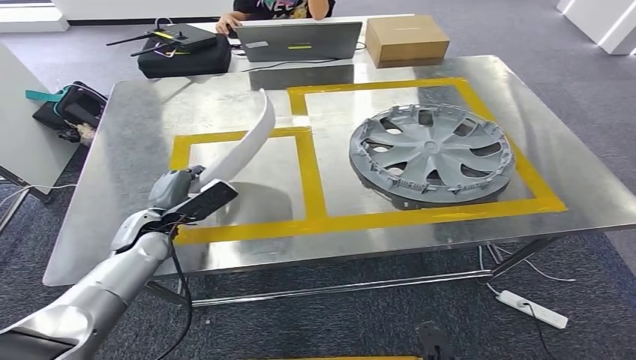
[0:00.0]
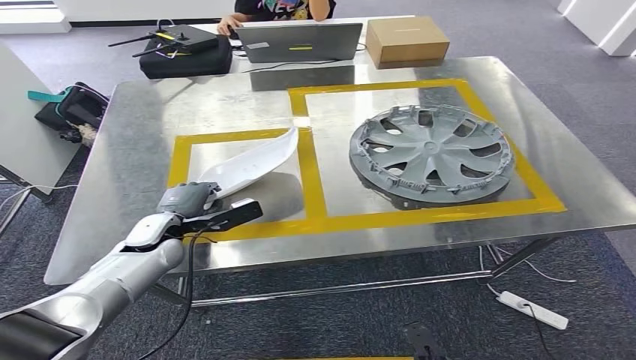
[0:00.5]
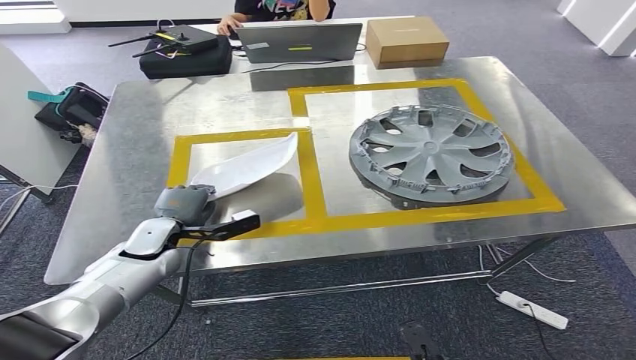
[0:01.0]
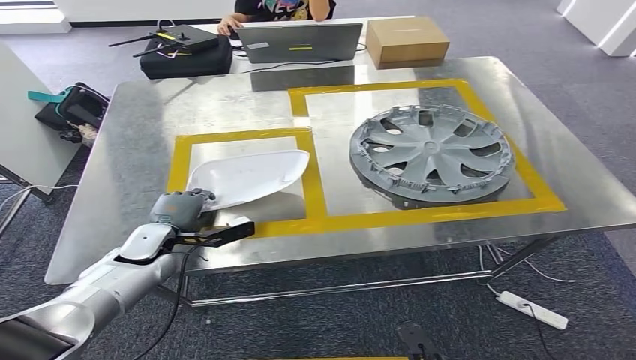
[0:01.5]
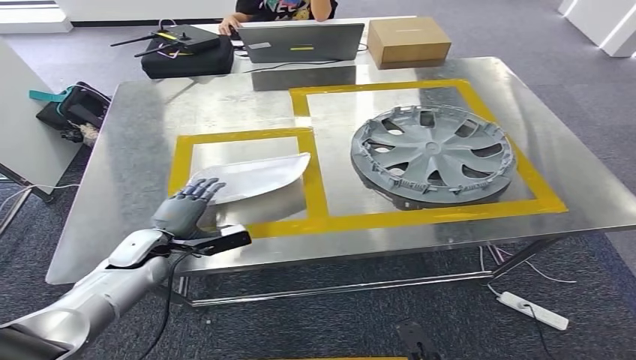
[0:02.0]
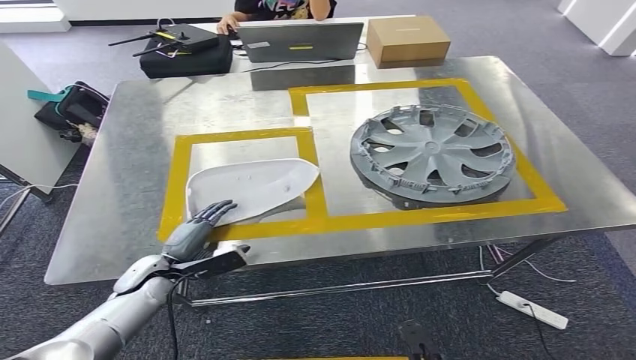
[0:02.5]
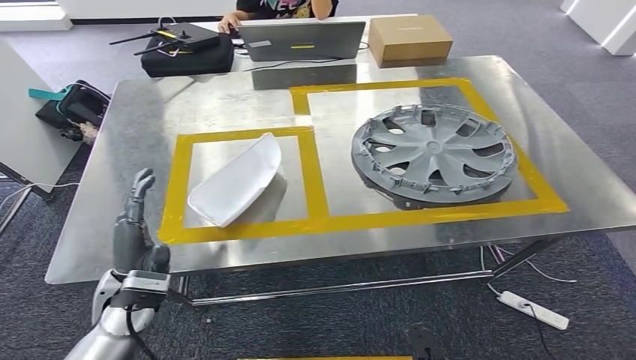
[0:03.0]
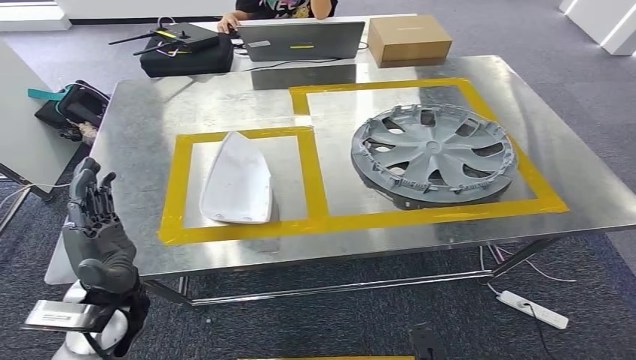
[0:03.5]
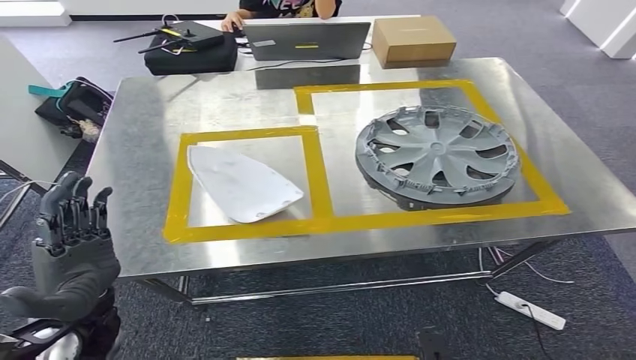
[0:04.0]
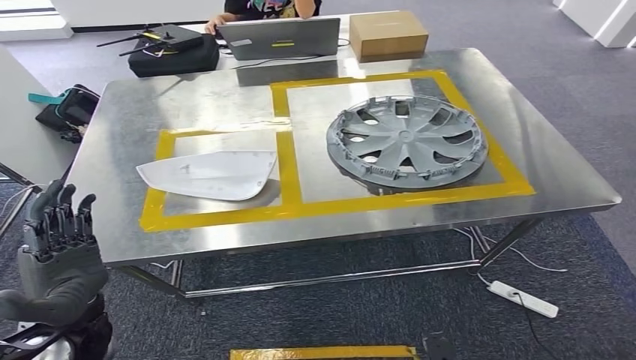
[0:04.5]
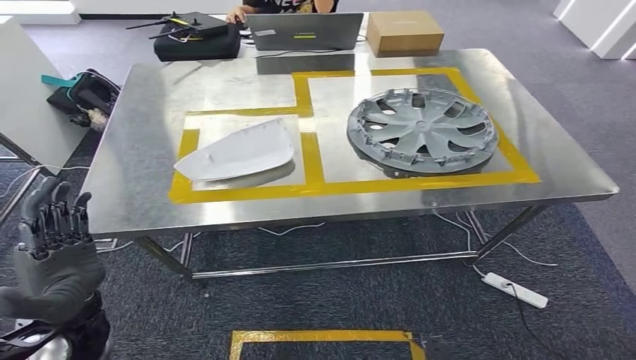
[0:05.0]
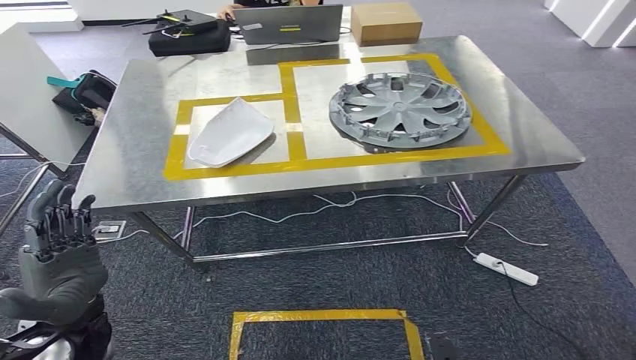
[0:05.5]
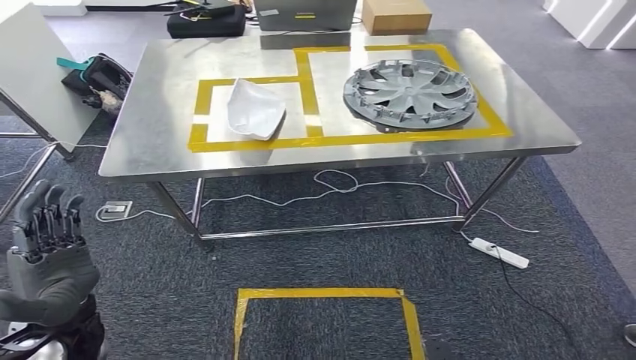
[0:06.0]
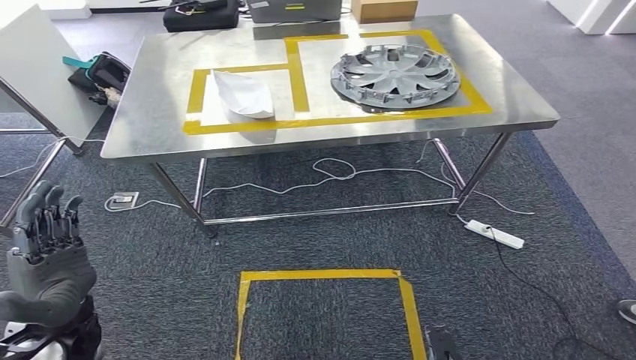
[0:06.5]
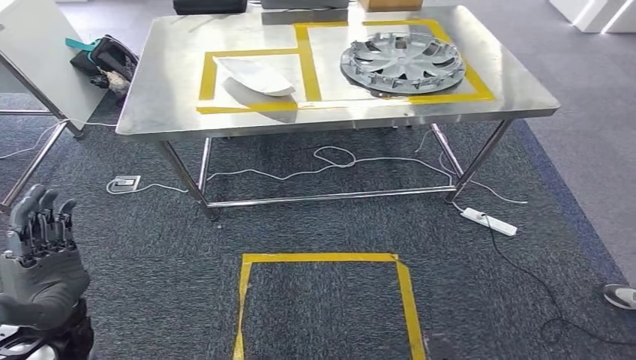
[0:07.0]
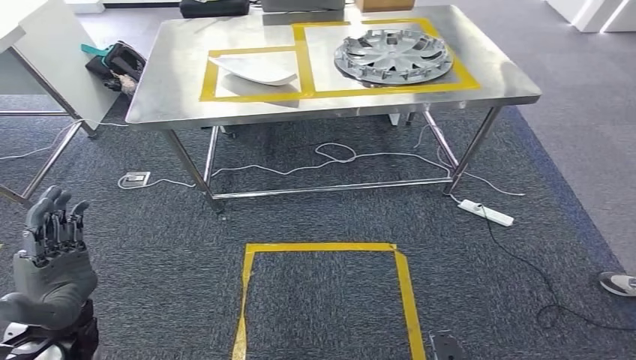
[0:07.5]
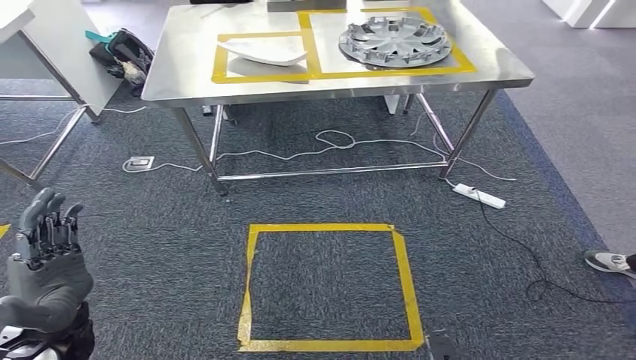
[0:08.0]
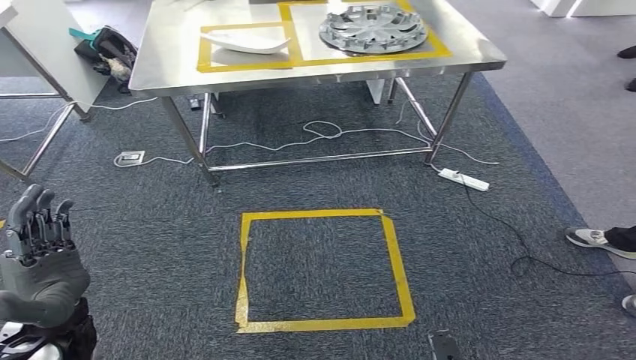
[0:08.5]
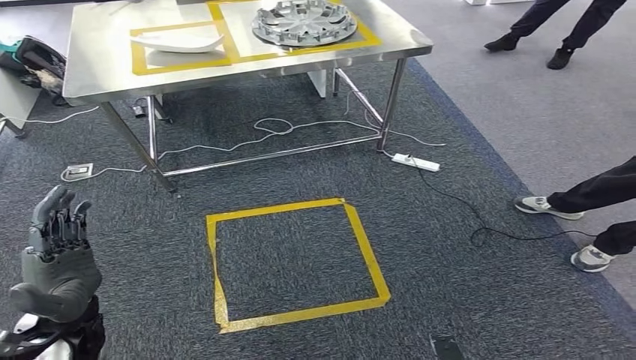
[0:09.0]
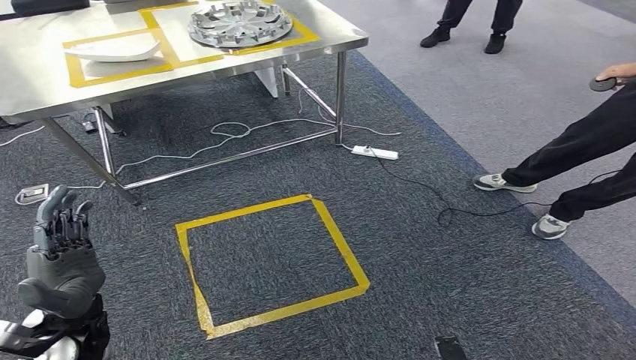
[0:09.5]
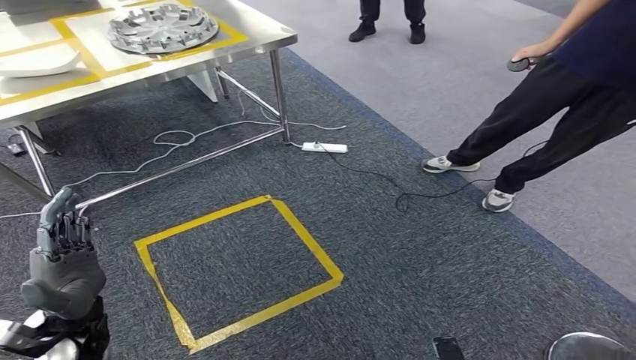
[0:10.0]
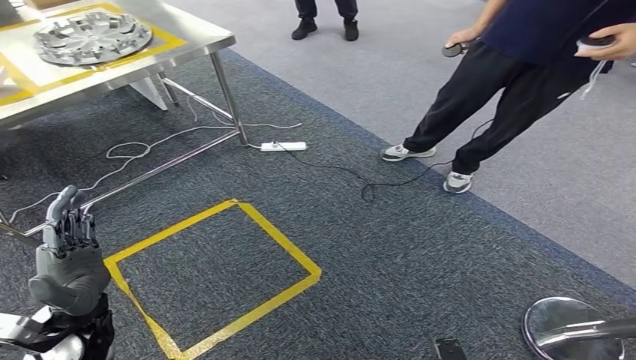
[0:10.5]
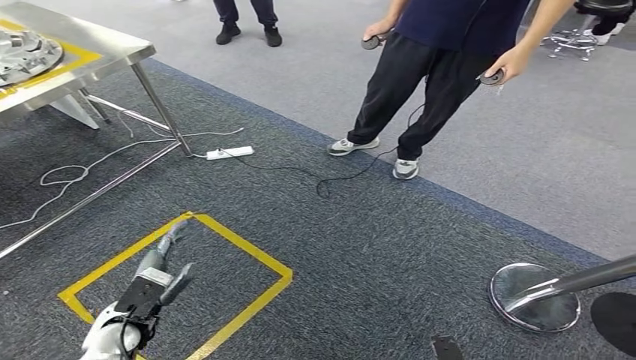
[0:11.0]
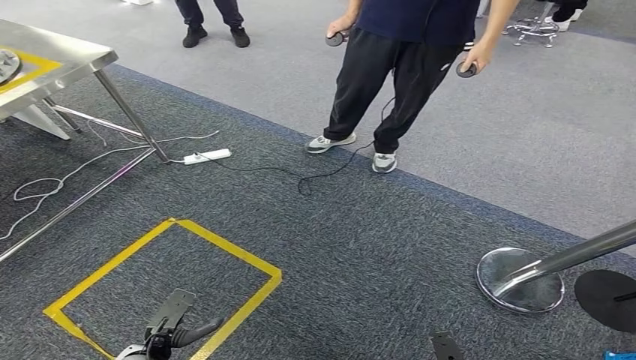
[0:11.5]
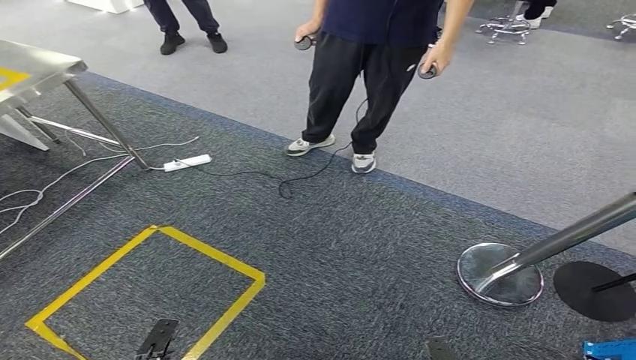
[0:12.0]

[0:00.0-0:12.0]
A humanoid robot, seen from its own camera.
Step, 0:00.0 to 0:03.0: Insert the small component into the corresponding slot on the workbench.
0:00.0 to 0:02.0: The left hand ends up approximately 5 cm from where it was.

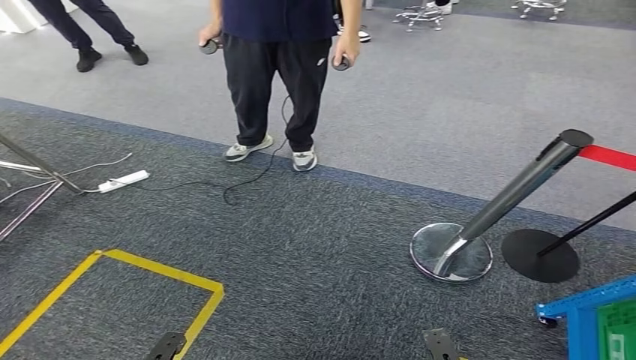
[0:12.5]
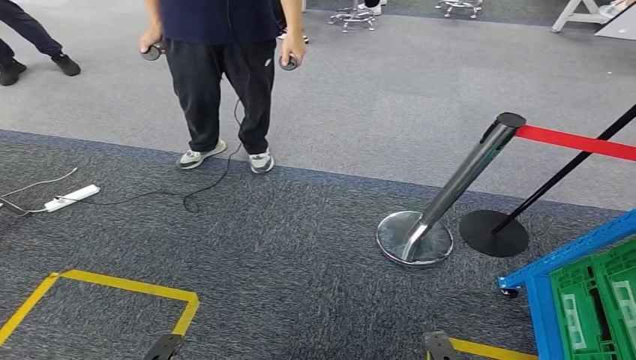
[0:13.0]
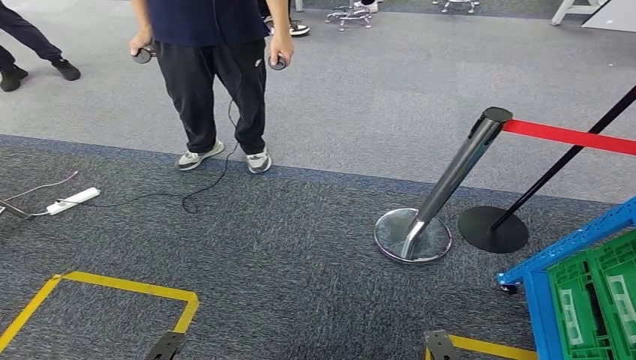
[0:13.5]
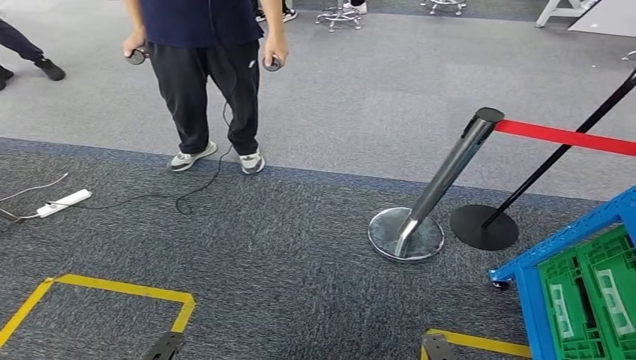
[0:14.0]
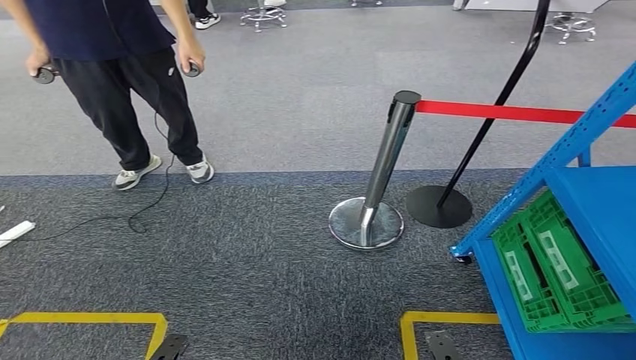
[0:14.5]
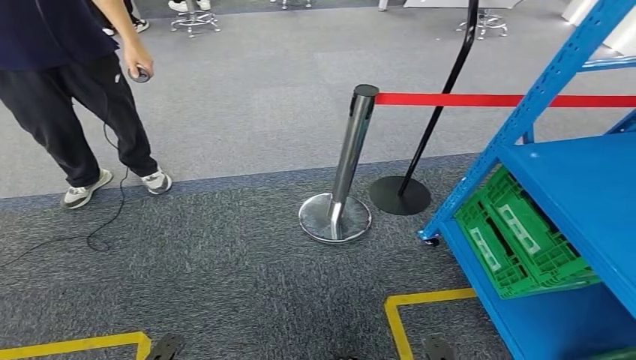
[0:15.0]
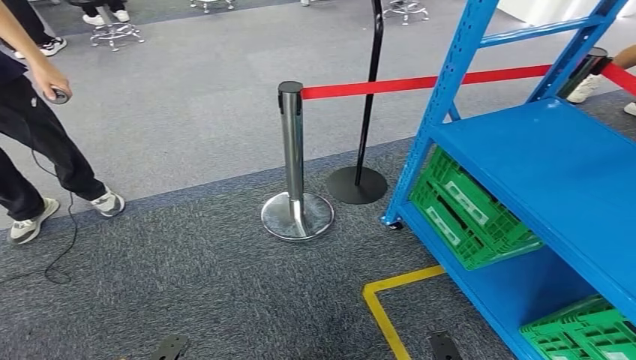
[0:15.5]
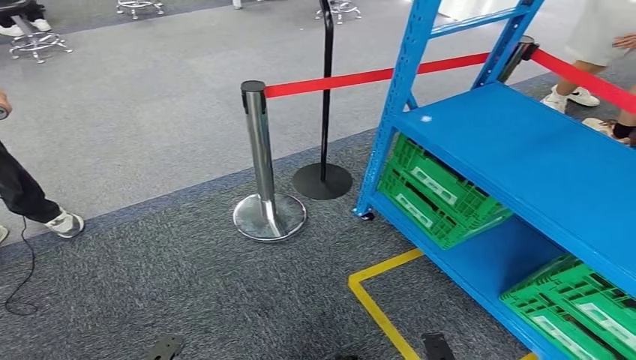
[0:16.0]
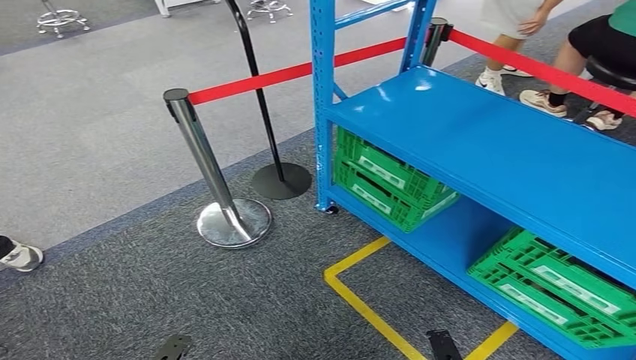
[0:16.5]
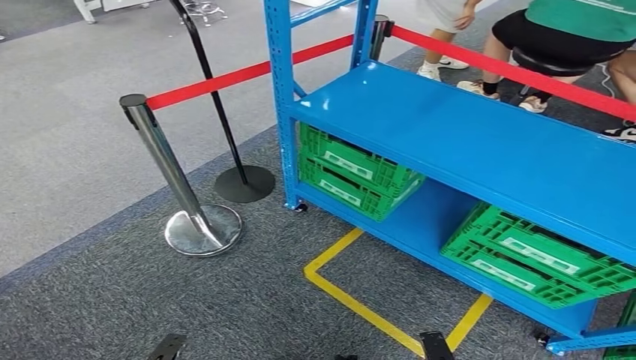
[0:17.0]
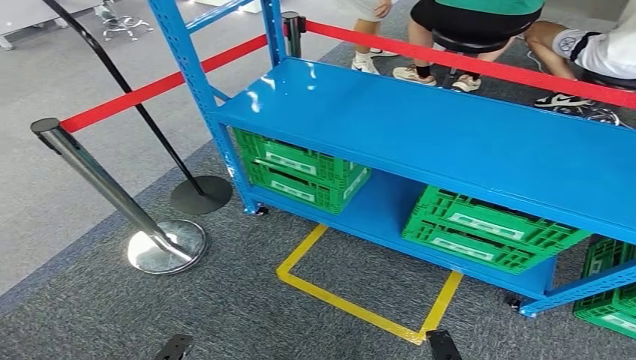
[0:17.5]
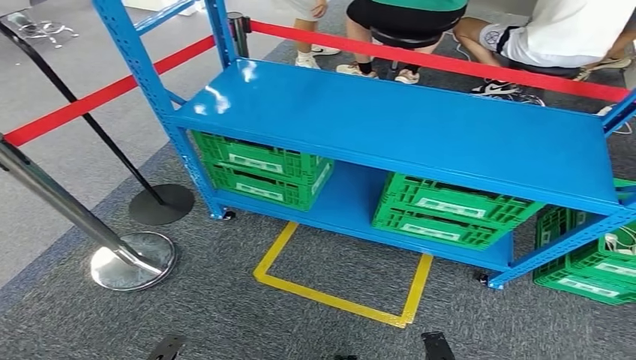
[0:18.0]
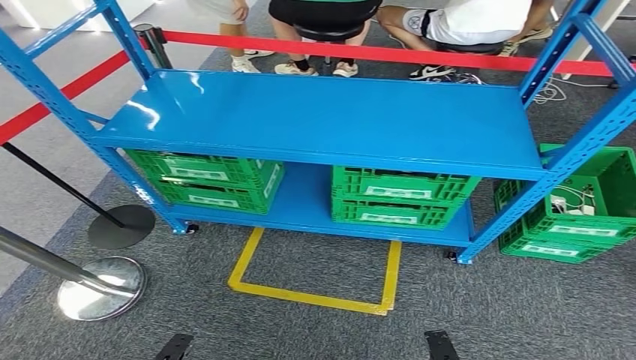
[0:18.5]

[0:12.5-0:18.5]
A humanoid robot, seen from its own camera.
Step, 0:12.5 to 0:18.5: Return to the initial position at the workbench.
